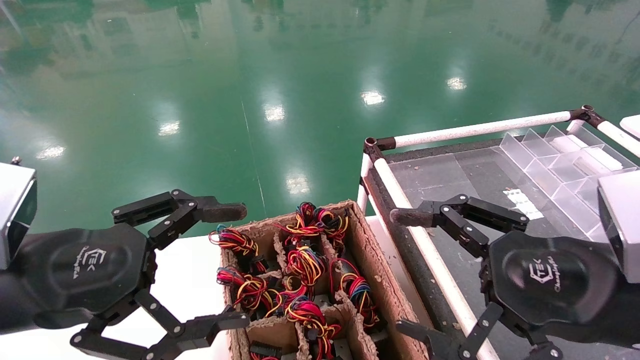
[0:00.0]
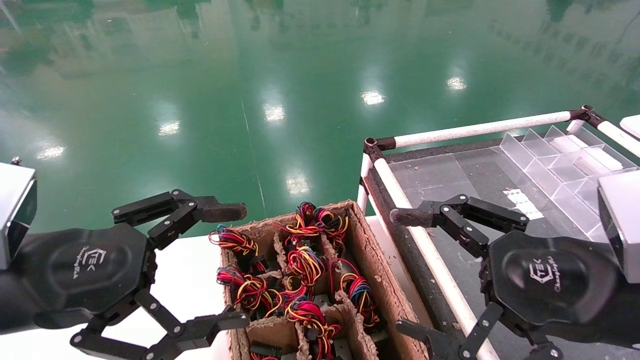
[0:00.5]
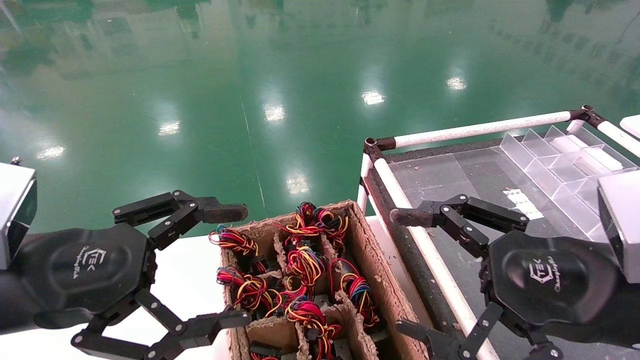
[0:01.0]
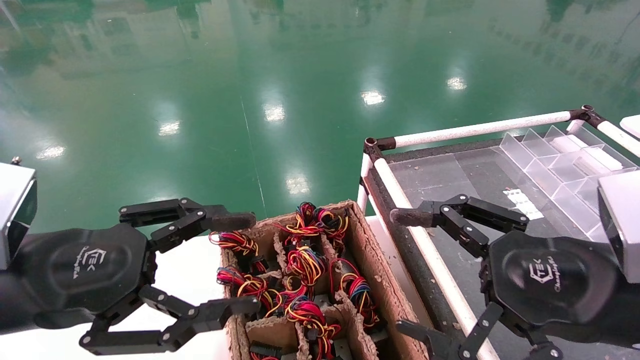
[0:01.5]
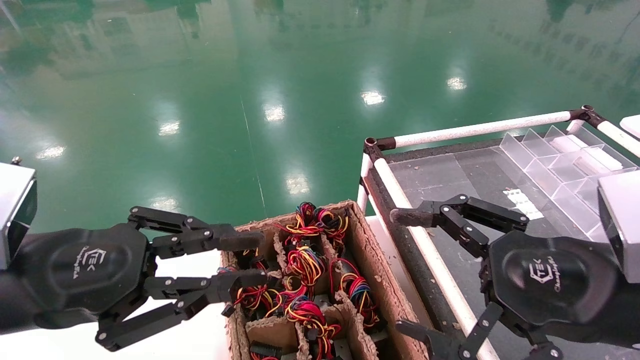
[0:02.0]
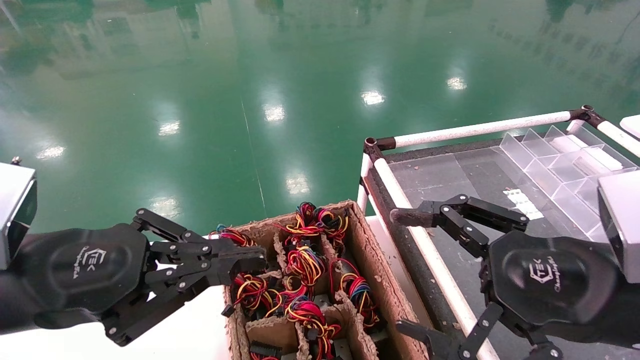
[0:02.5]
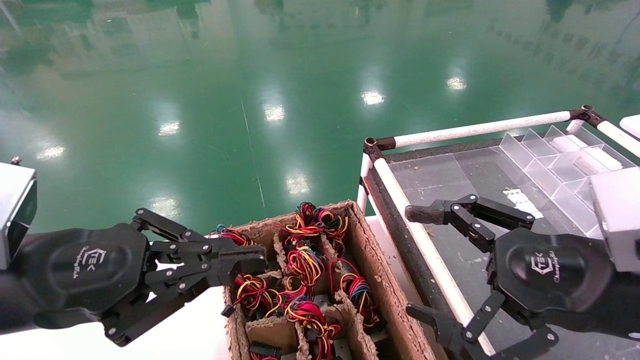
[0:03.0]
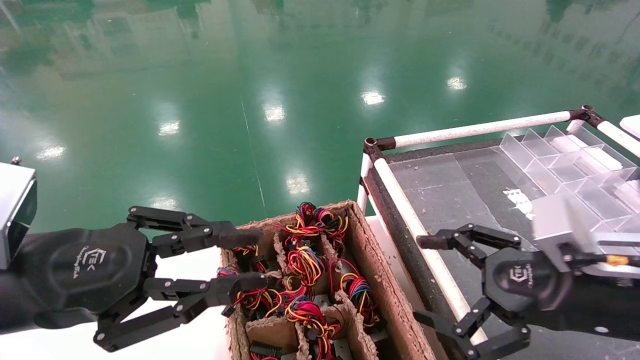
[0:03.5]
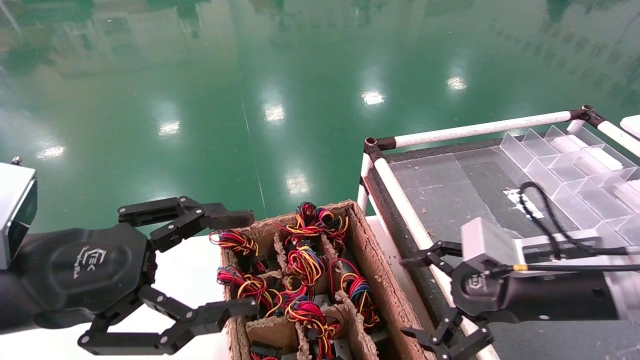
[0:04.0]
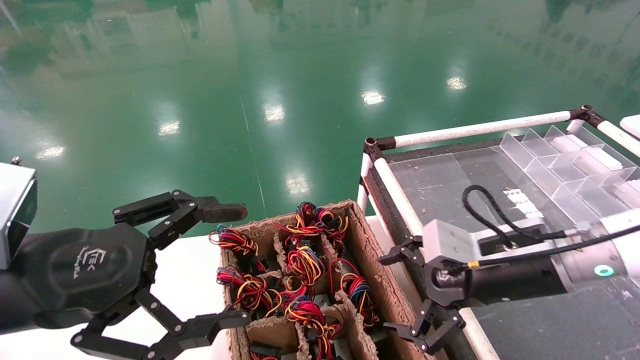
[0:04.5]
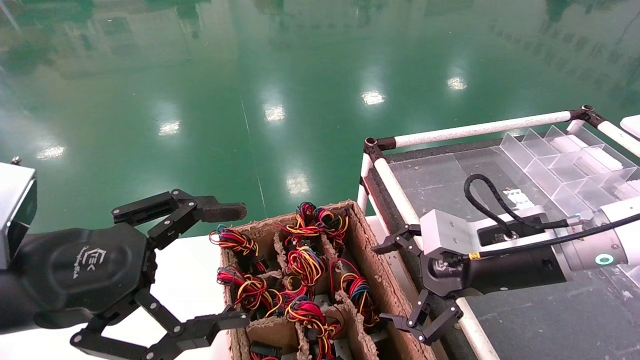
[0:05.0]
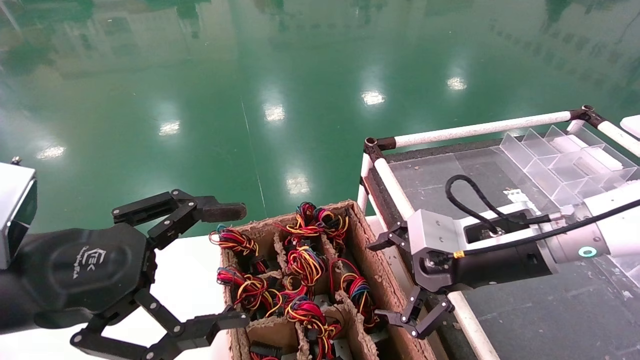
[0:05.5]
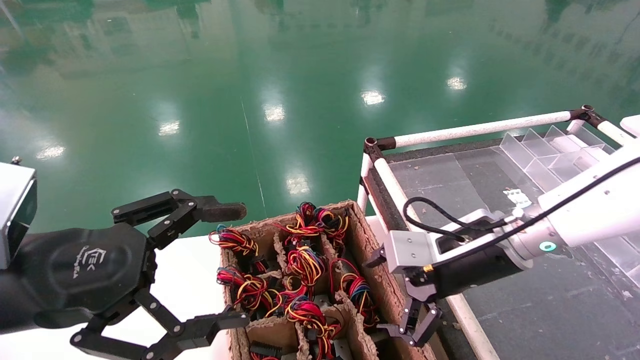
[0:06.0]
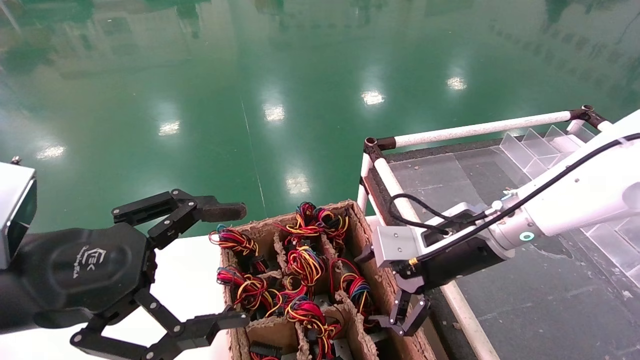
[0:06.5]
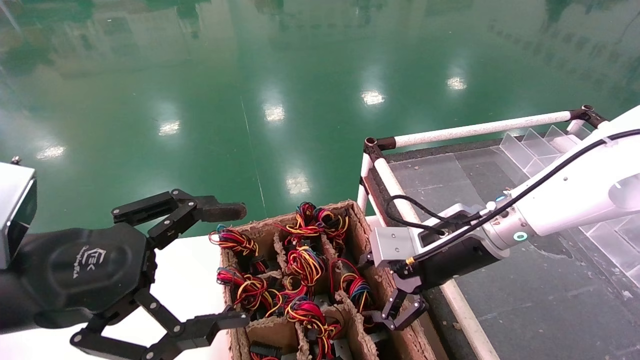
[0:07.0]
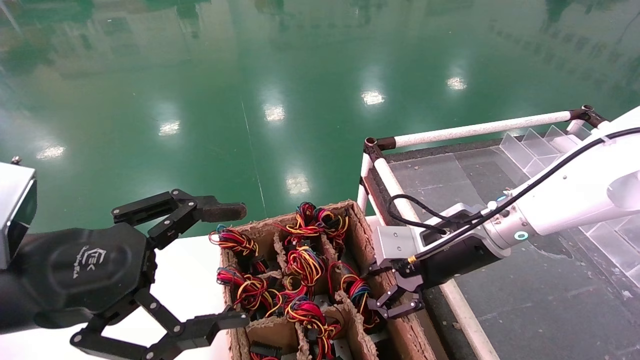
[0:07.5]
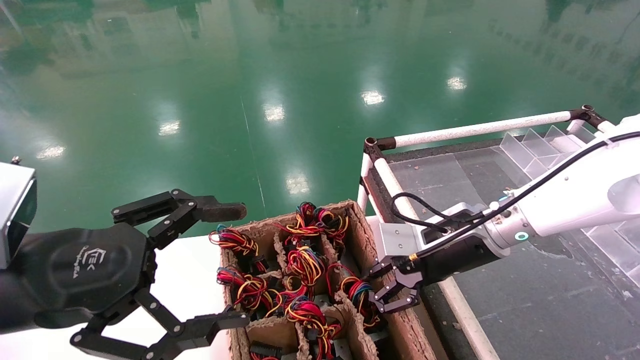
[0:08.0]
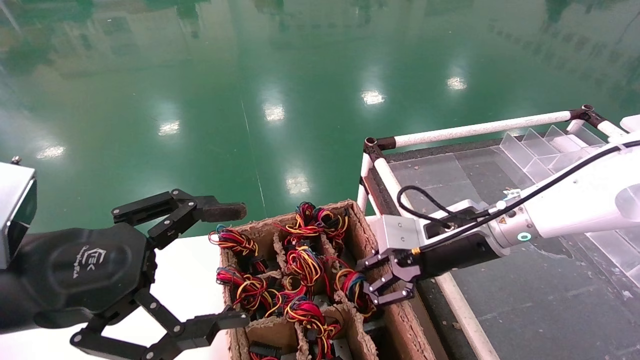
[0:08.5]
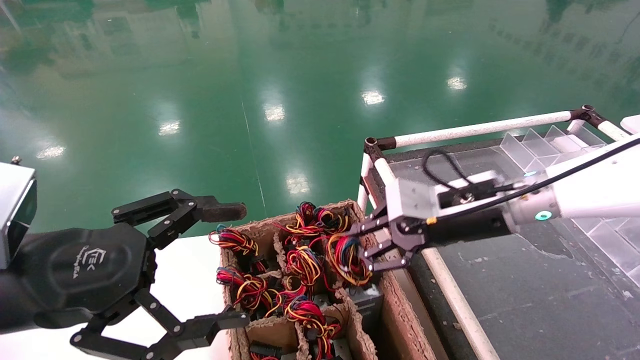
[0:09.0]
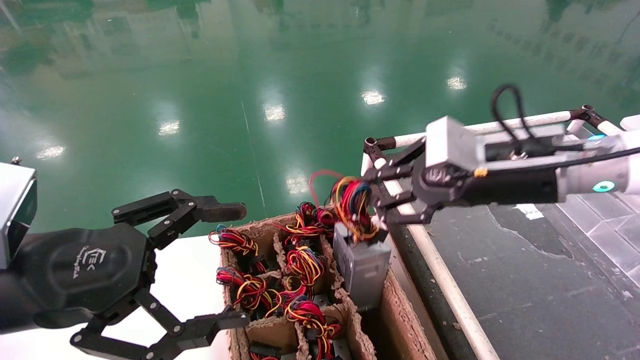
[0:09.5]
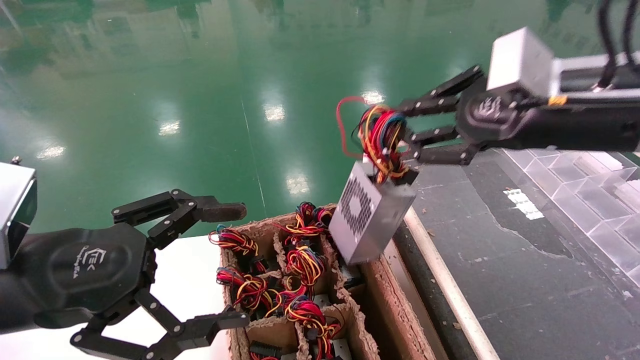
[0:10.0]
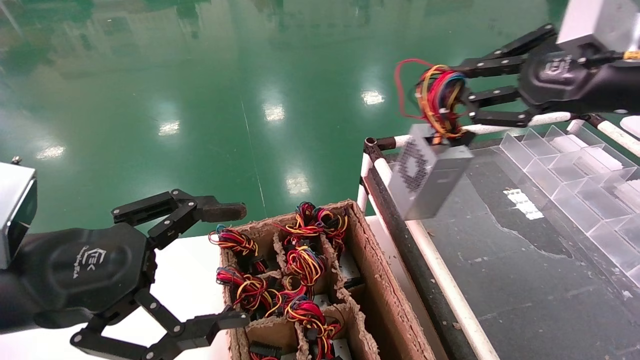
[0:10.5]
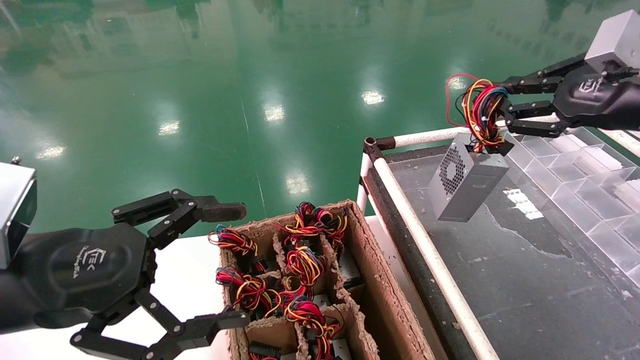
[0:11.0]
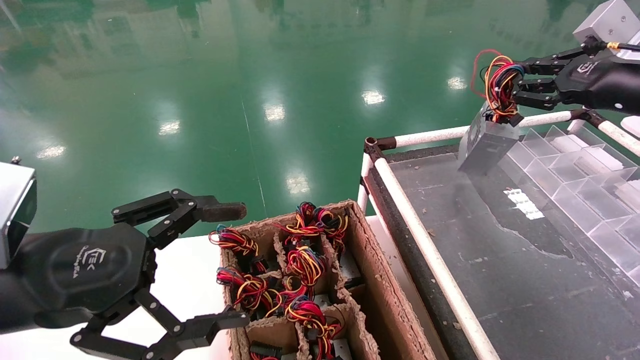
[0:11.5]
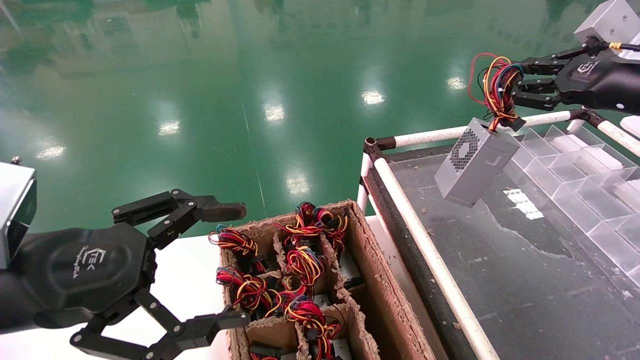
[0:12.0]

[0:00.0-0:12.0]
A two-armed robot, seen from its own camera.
Step, 0:03.0 to 0:08.0: Grab and lift the power supply from the large box.
0:00.0 to 0:02.0: The left gripper closes up.
0:02.0 to 0:04.0: The right gripper shifts approximately 10 cm forward.
0:04.0 to 0:06.0: The left gripper opens its fingers, while the right gripper goes some 10 cm to the left and forward.
0:06.0 to 0:08.0: The right gripper closes its fingers.
0:08.0 to 0:10.0: The right gripper moves upward, backward and to the right, roughly 20 cm.
0:10.0 to 0:12.0: The right gripper travels to the right and forward by about 15 cm.

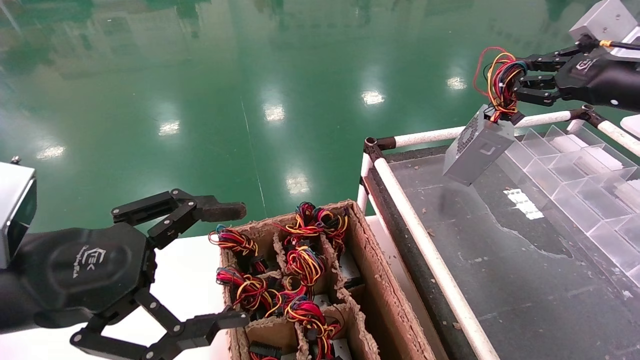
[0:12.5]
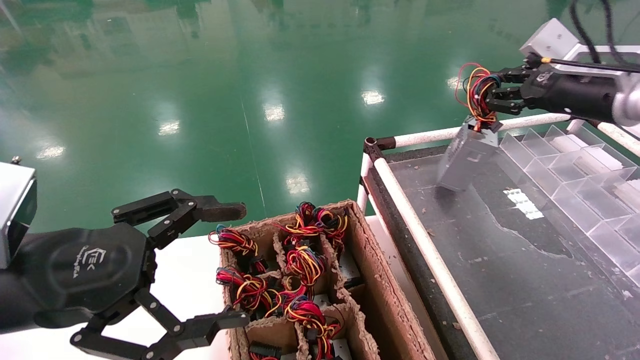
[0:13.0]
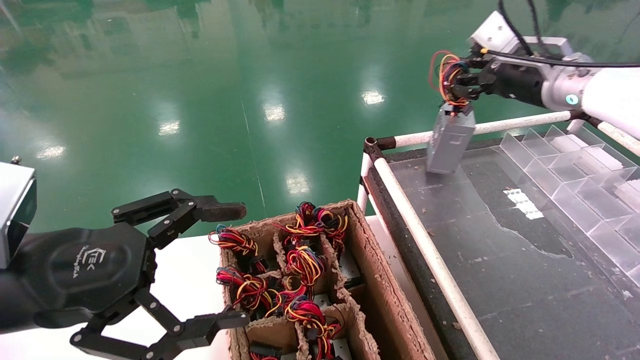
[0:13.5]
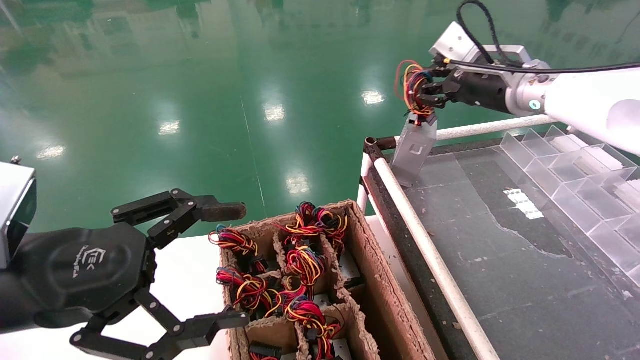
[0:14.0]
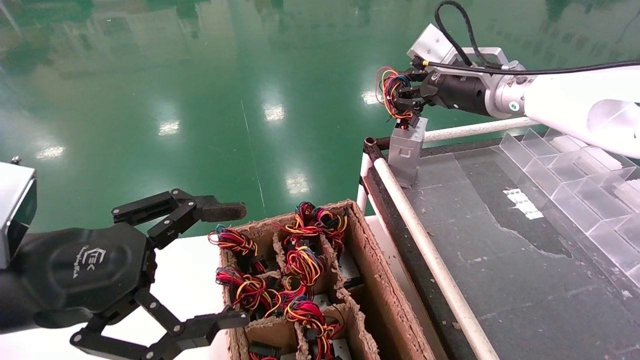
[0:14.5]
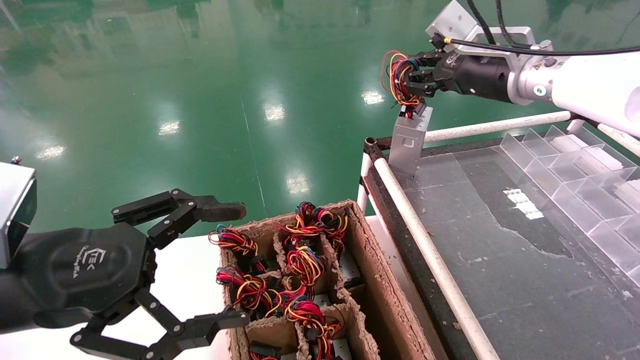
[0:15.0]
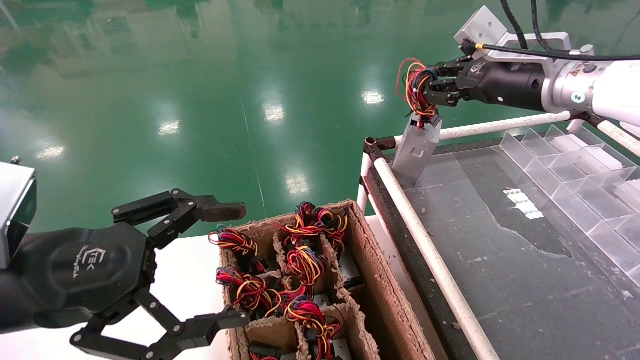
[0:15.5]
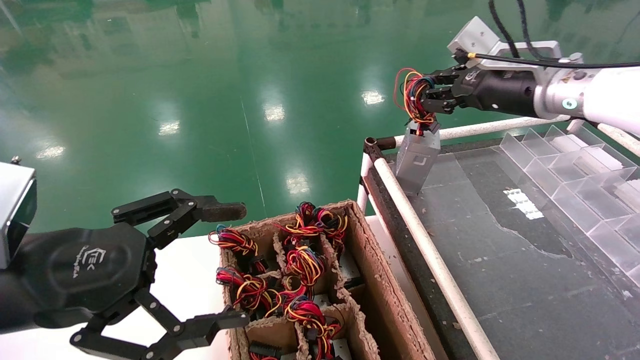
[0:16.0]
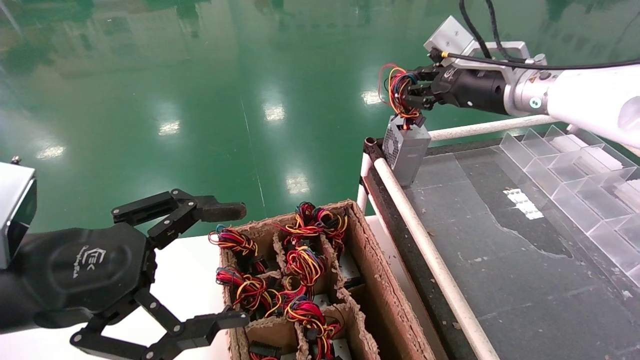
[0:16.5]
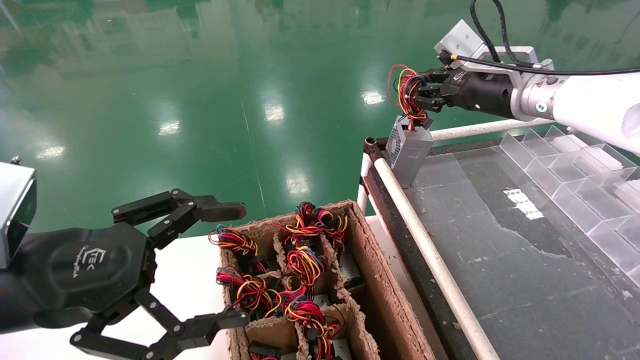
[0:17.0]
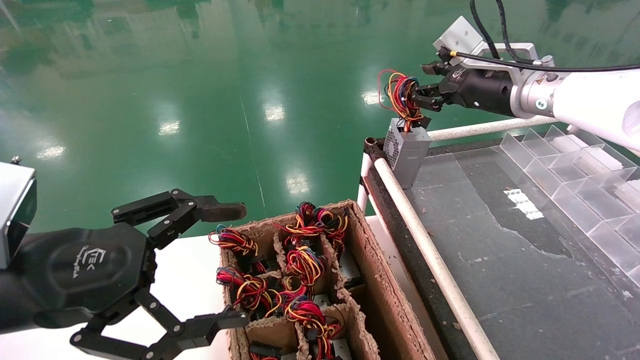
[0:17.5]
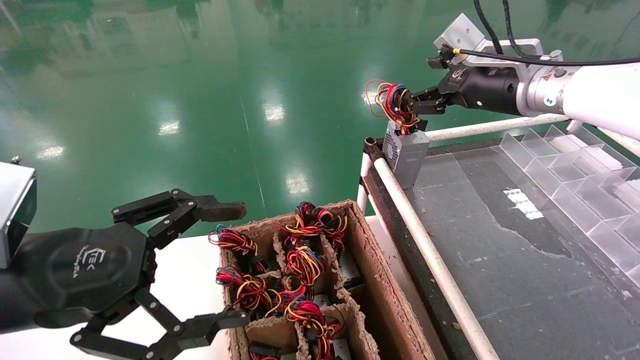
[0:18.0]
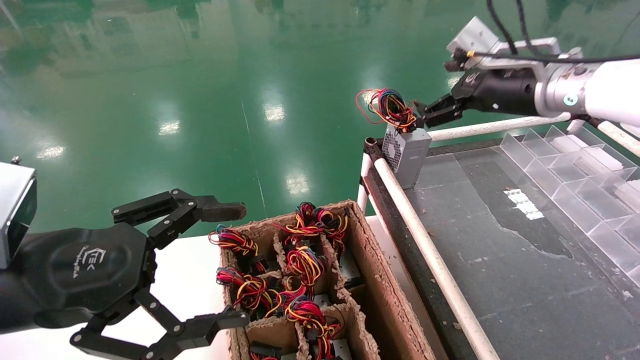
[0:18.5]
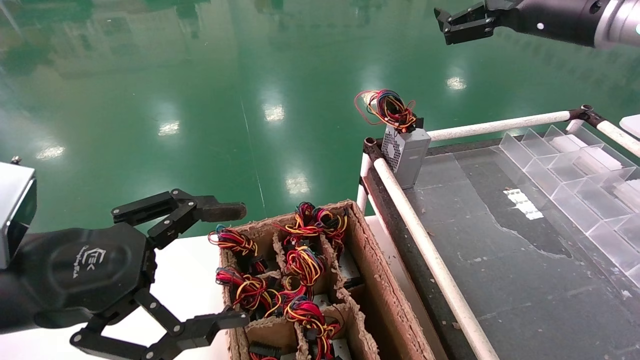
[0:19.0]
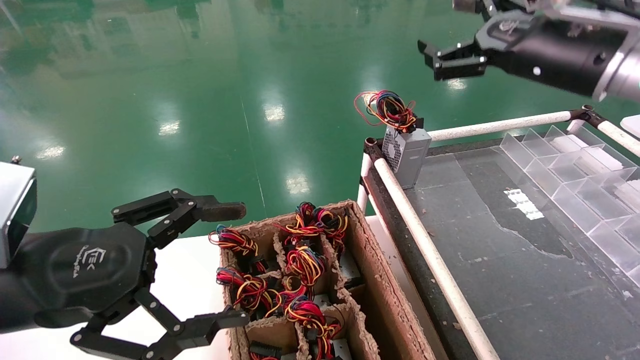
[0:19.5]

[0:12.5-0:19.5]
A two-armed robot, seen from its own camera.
Step, 0:12.5 to 0:17.0: Place the power supply on the operating table.
0:12.5 to 0:14.5: The right gripper is displaced to the left and forward by about 20 cm.
0:14.5 to 0:17.5: The grippers make only small movements.
0:17.5 to 0:19.5: The right gripper heads backward, covering approximately 10 cm, and opens up.

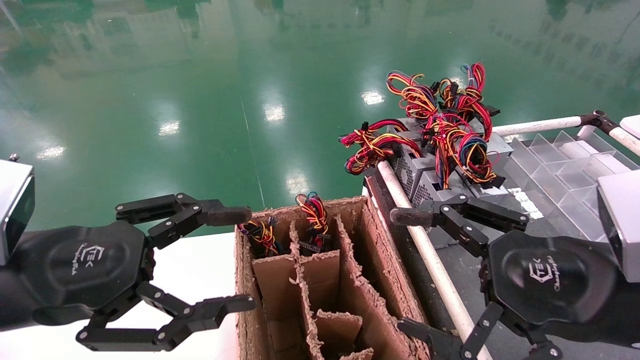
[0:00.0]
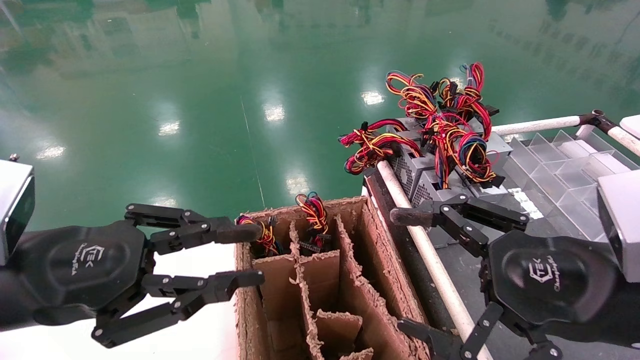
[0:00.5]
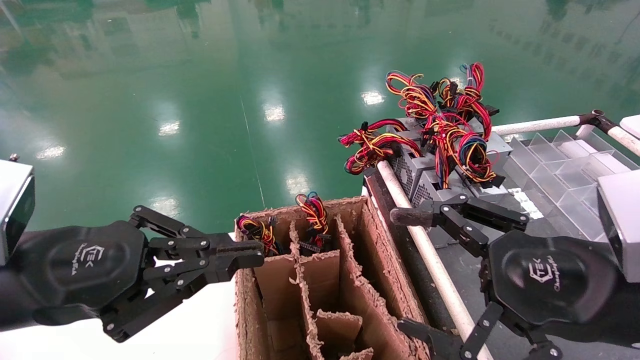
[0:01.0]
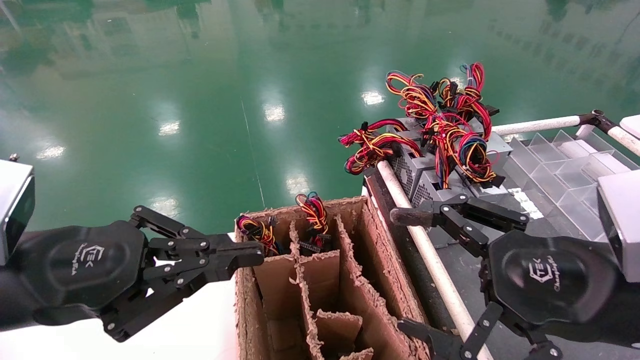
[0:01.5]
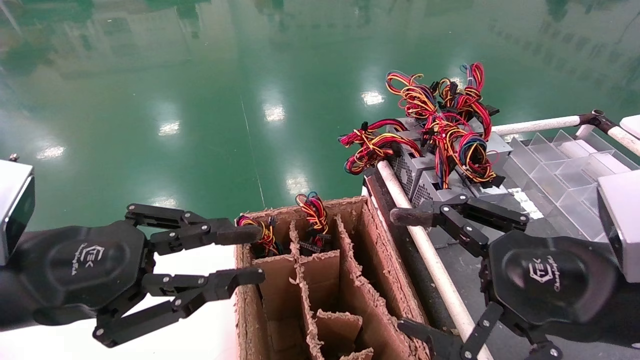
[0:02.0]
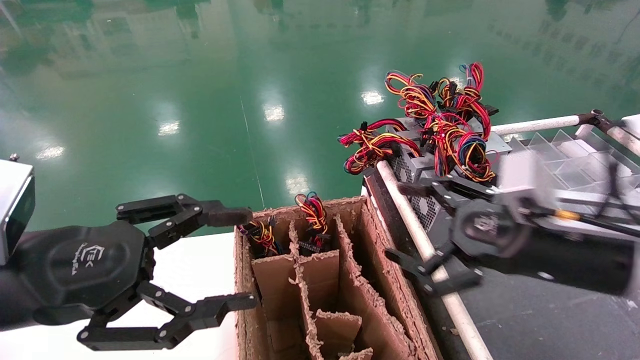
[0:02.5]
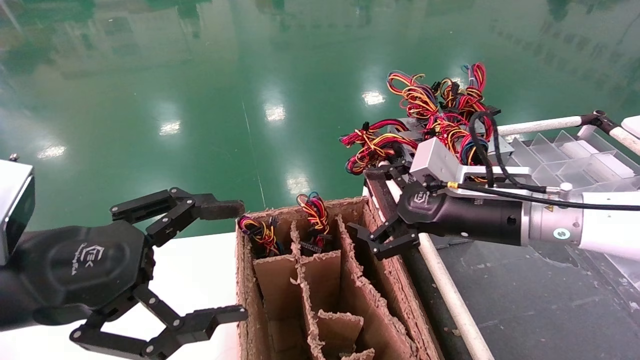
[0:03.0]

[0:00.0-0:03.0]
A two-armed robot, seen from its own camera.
0:00.0 to 0:01.5: The left gripper closes up.
0:01.5 to 0:03.0: The left gripper opens up; the right gripper heads forward, covering some 15 cm.
